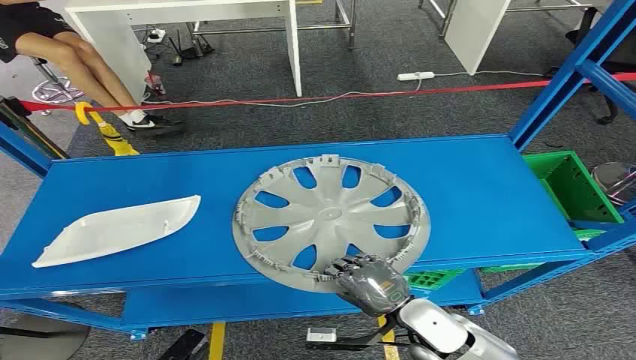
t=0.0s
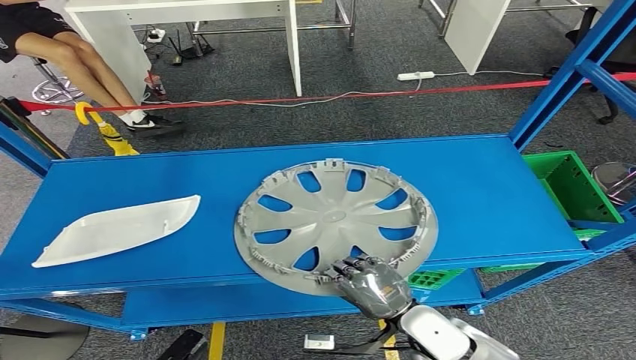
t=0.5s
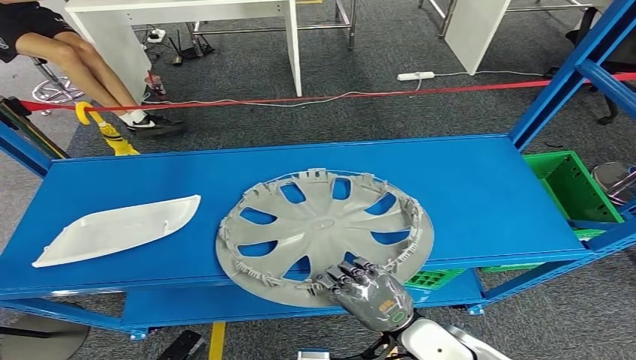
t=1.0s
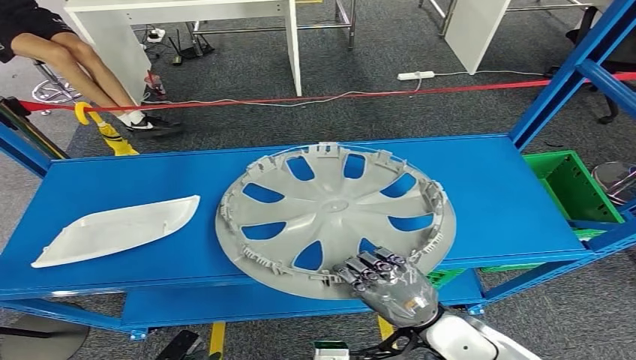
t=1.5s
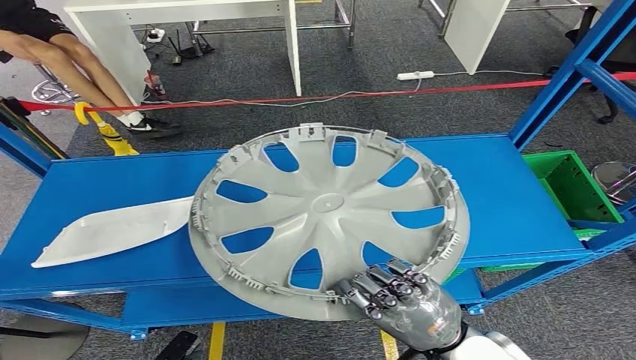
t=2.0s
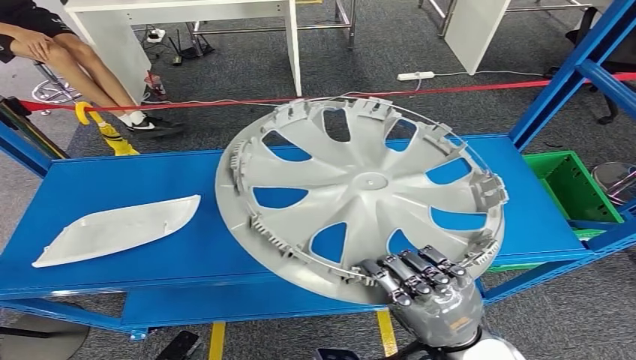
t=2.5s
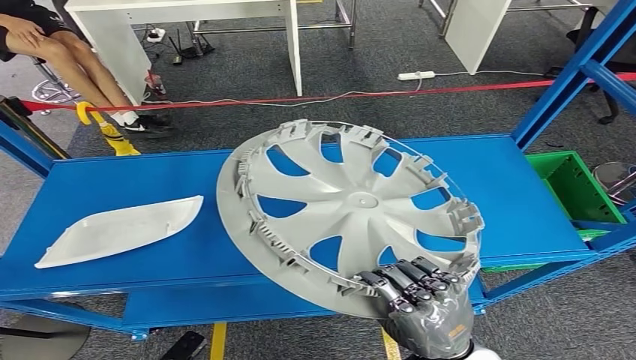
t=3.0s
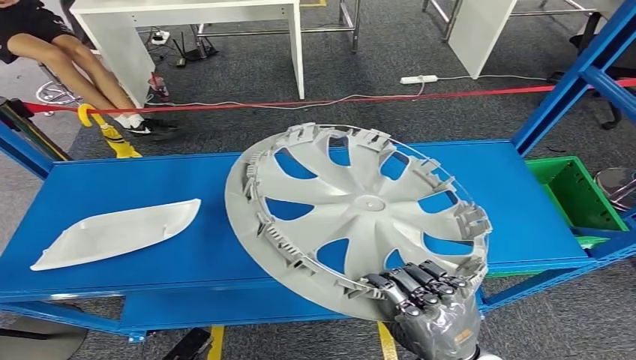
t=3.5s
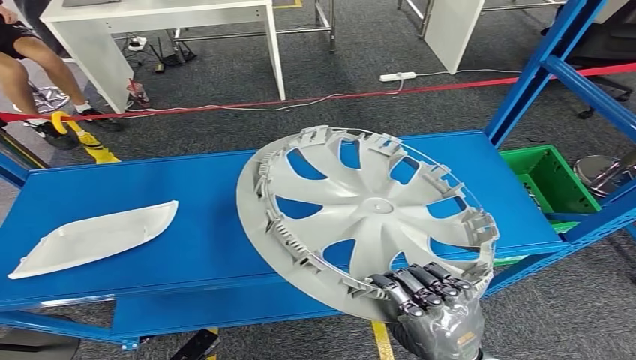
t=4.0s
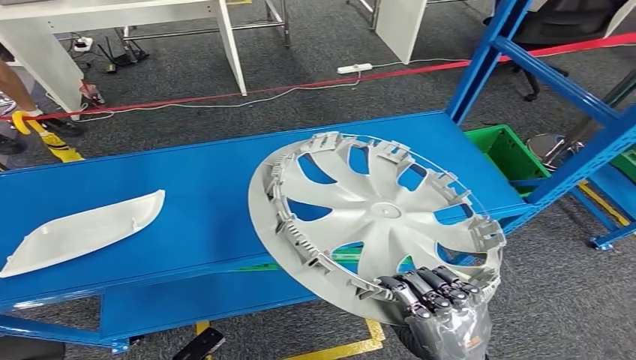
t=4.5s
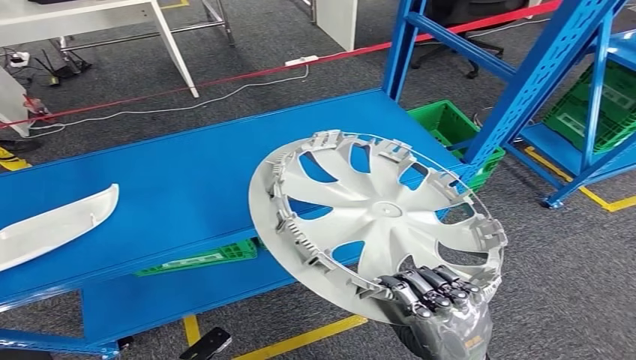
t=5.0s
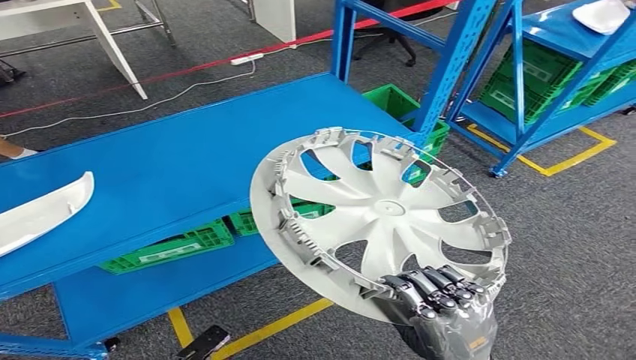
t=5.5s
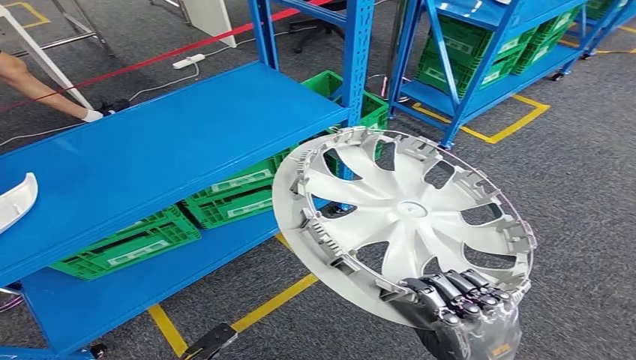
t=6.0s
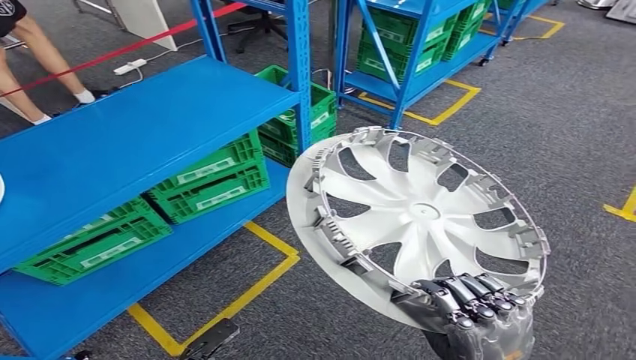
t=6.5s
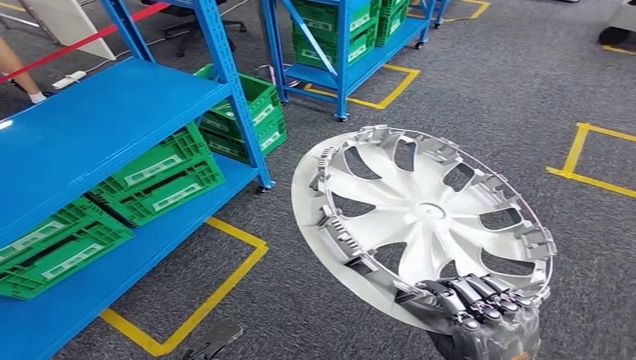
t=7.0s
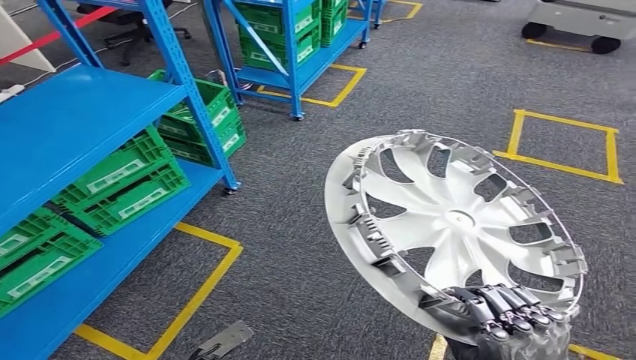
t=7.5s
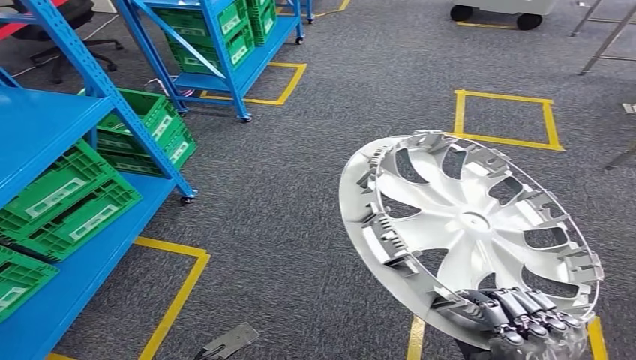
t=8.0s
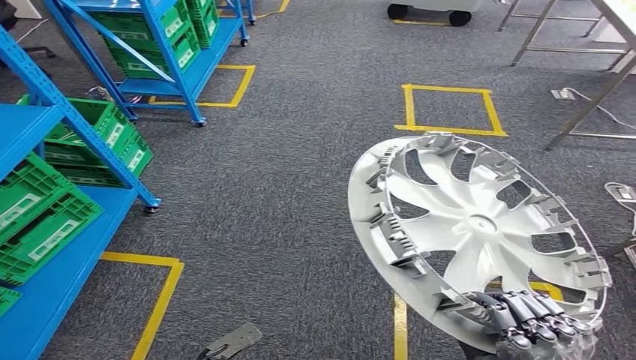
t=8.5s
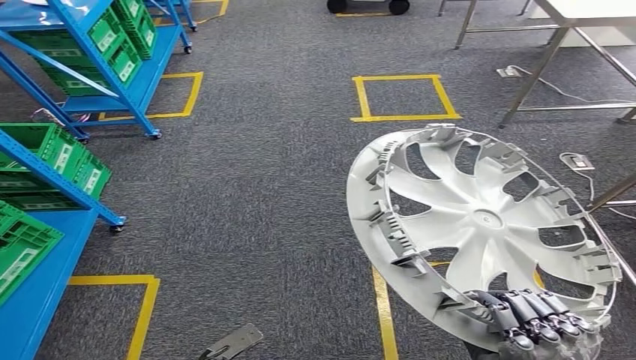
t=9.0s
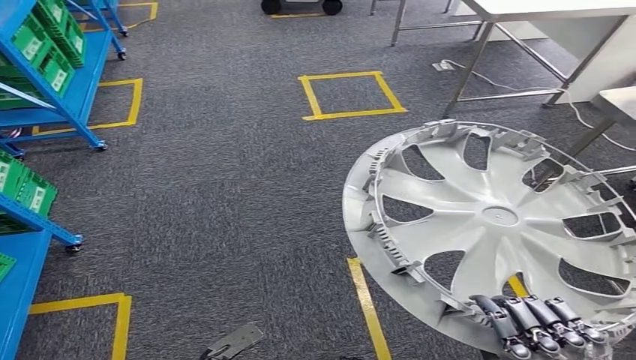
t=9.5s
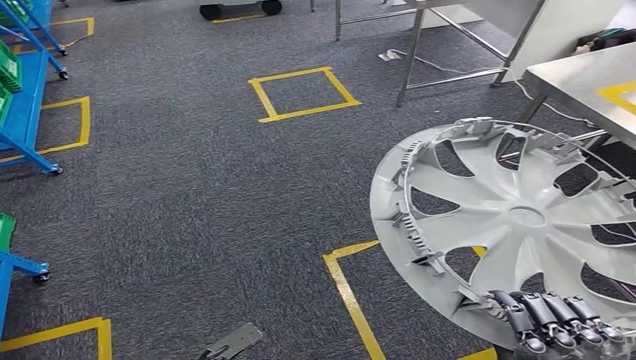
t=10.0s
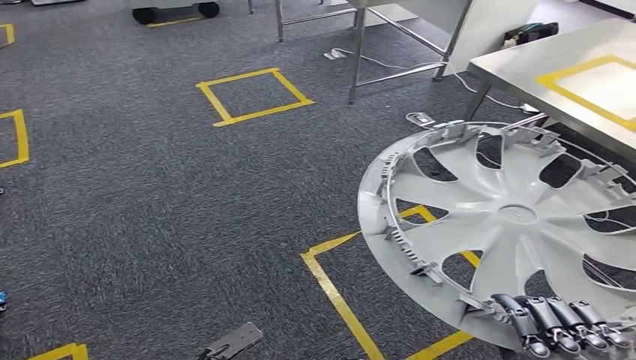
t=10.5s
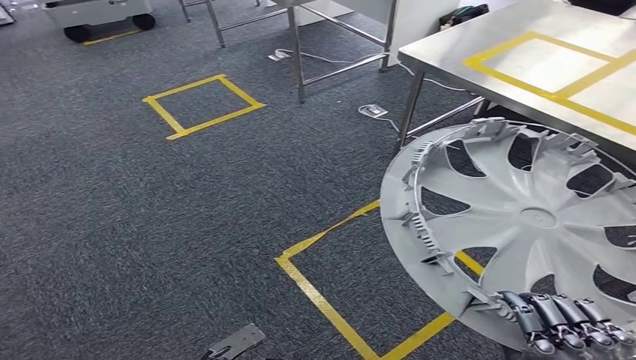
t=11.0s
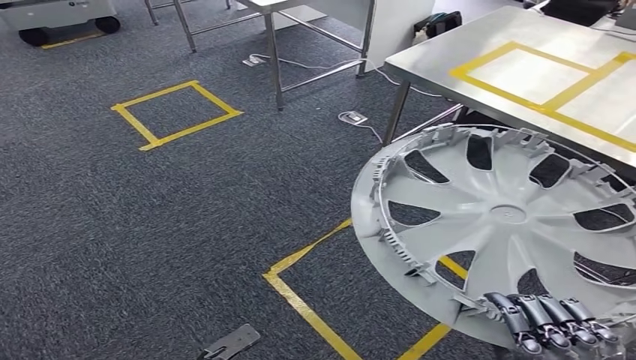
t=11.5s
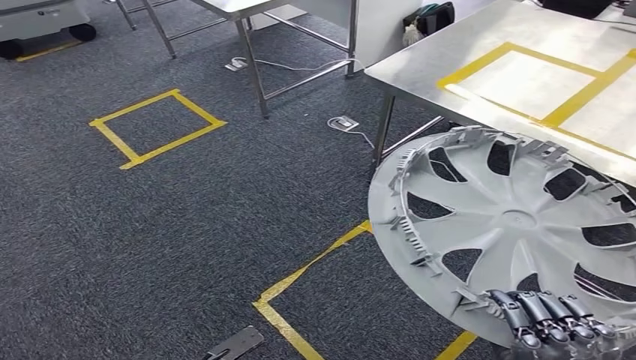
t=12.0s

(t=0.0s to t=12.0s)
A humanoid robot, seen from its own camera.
Step, t=0.0s - t=2.5s: Pick up the small component from the shelf.

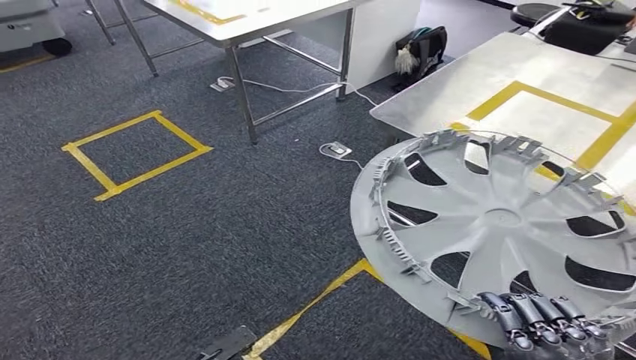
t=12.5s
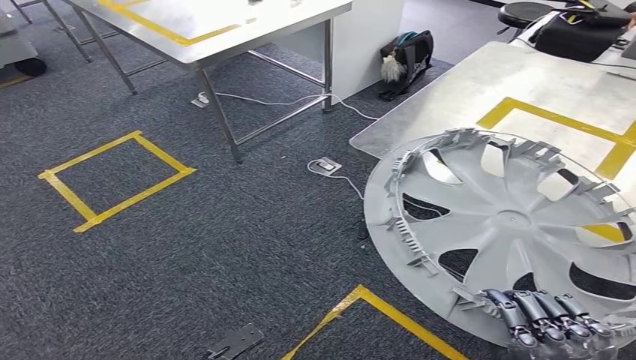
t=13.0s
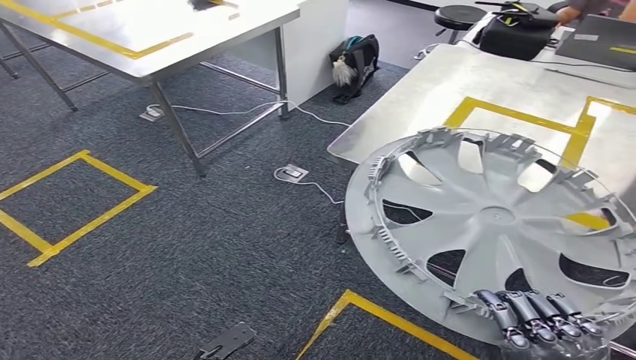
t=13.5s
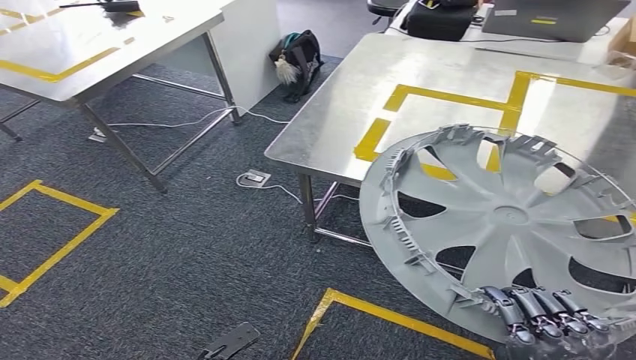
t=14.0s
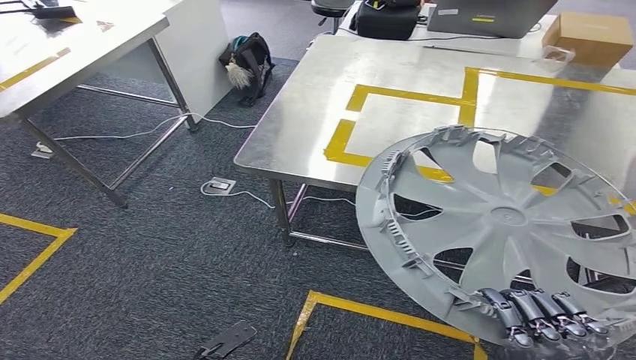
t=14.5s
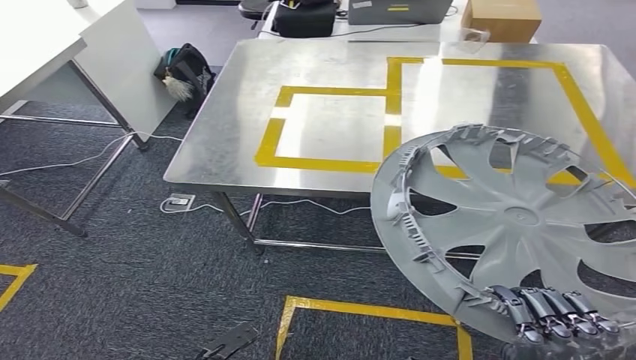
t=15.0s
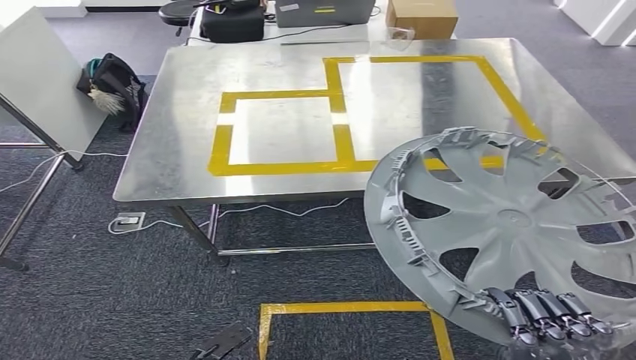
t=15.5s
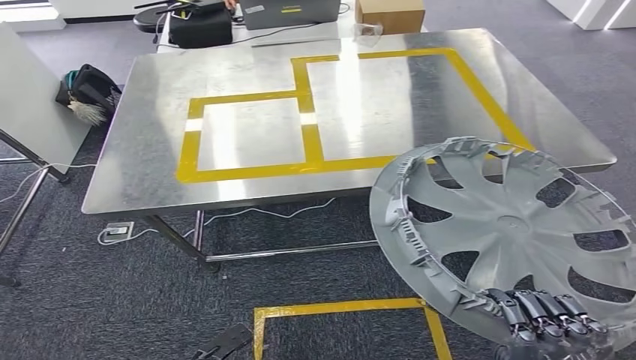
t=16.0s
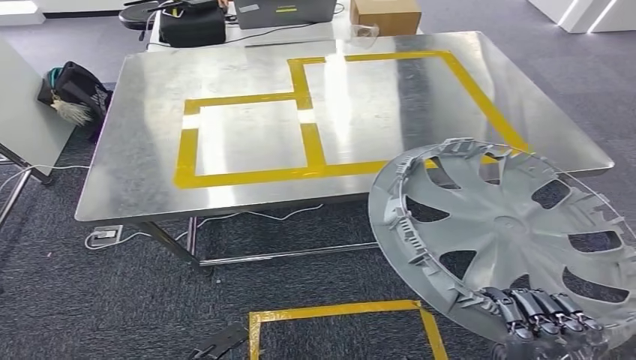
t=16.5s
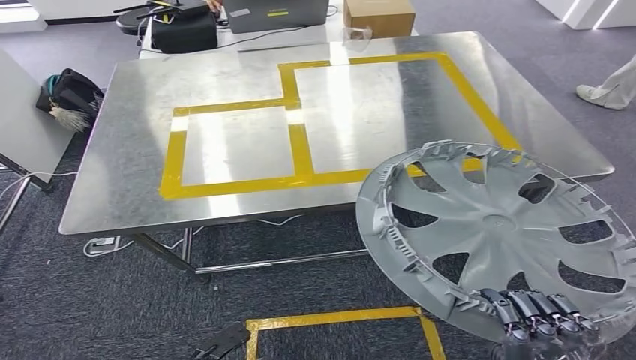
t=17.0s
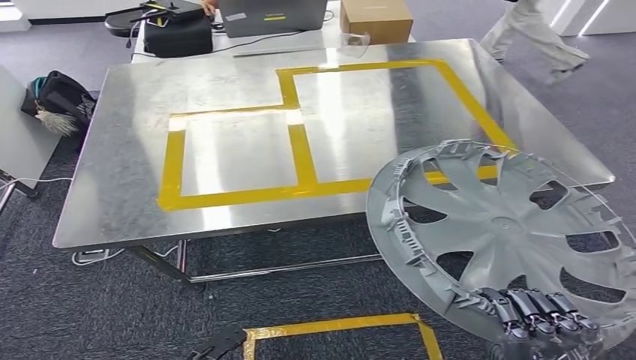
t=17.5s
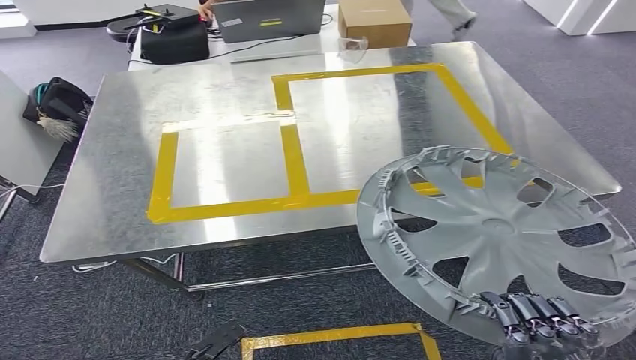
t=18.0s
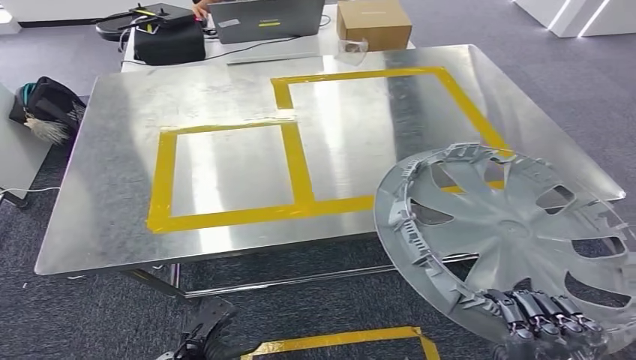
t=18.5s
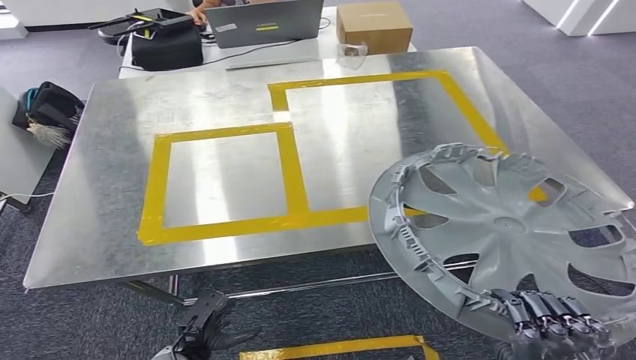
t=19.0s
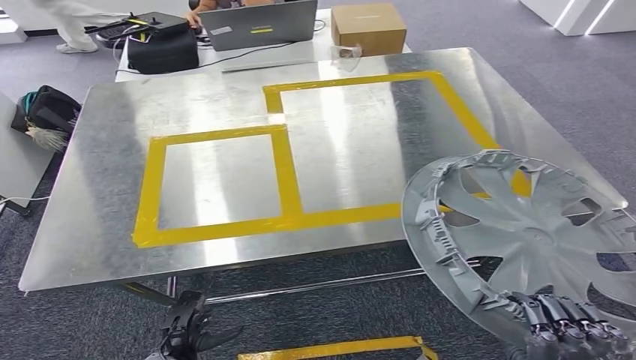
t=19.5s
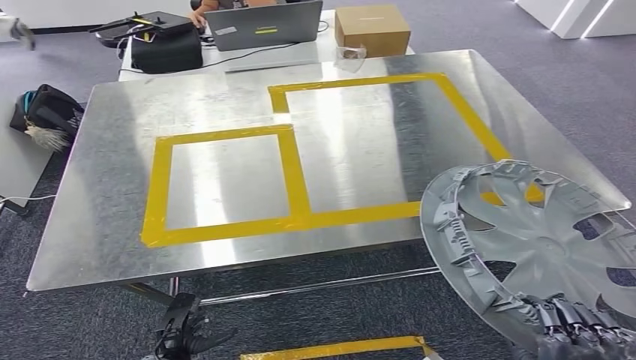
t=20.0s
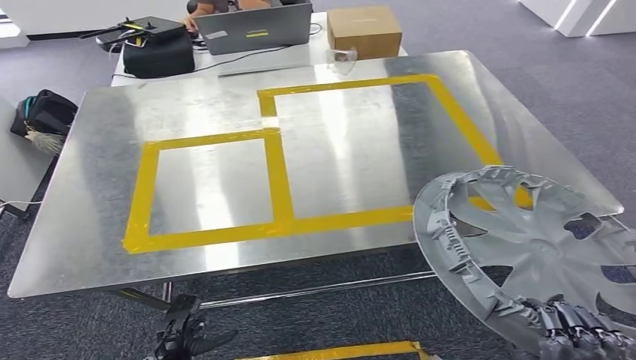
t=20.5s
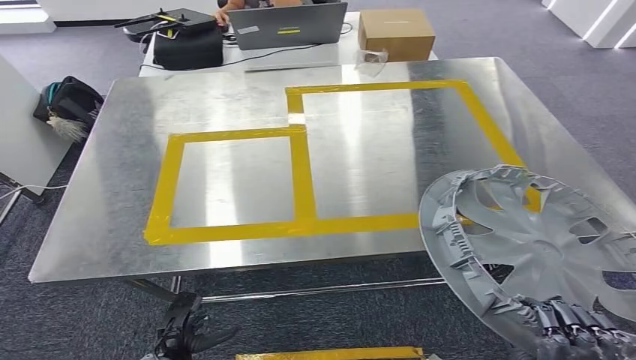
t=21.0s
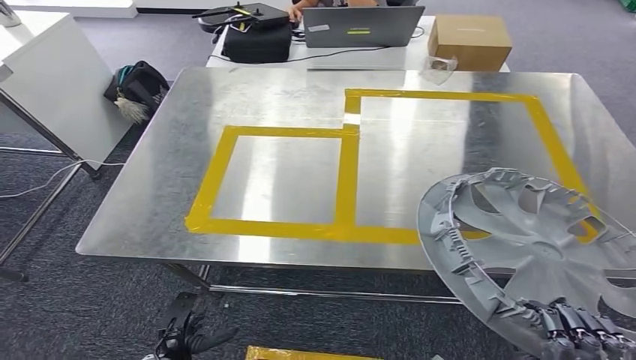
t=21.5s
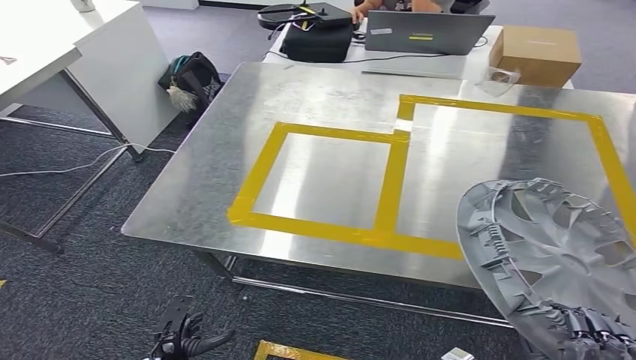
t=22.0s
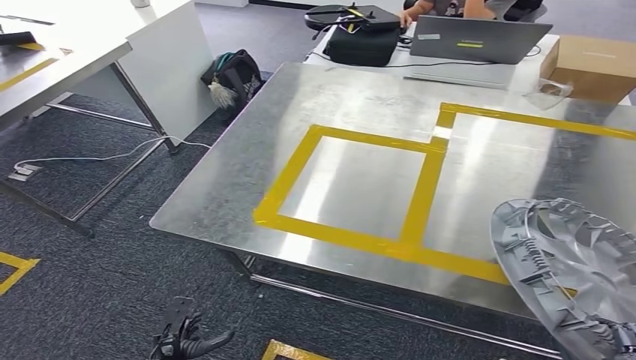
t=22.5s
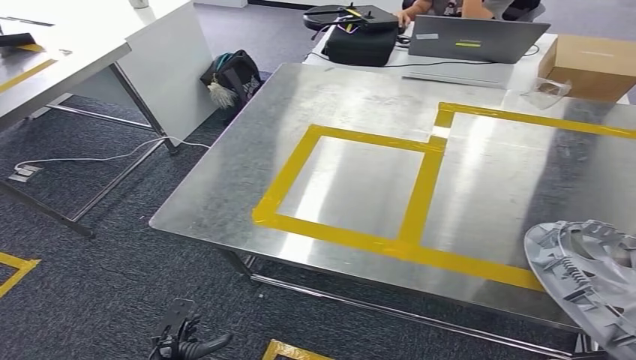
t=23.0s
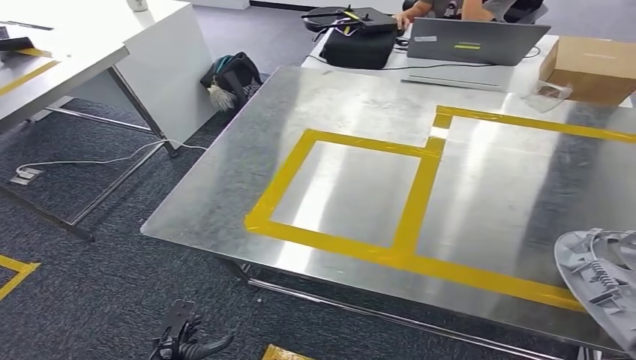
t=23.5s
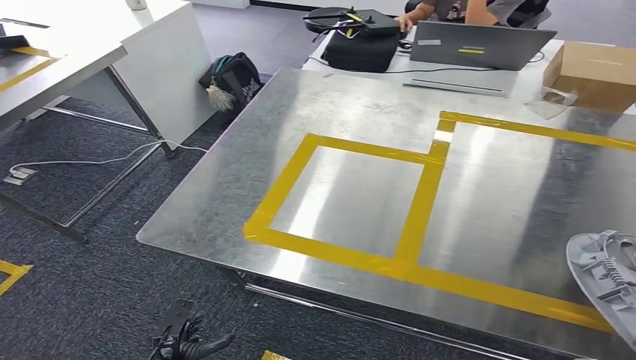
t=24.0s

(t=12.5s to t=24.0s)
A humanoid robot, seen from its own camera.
Step, t=12.5s - t=17.0s: Move the small component to the workbench.
